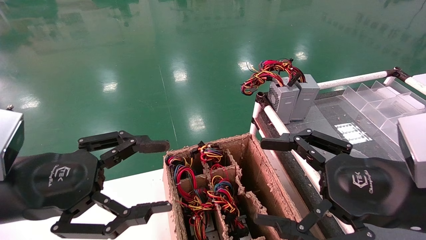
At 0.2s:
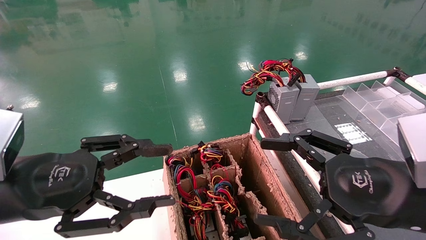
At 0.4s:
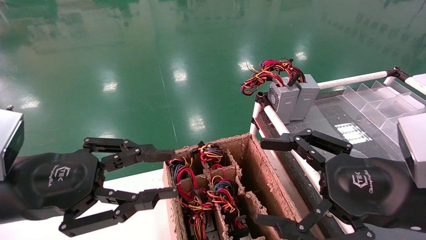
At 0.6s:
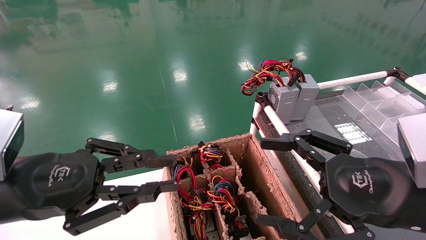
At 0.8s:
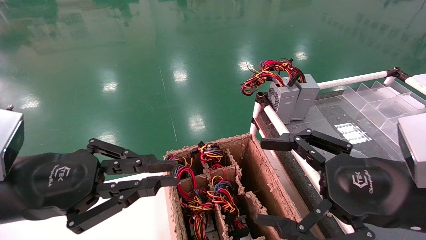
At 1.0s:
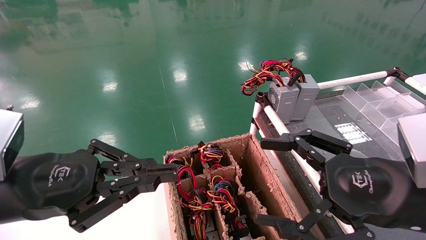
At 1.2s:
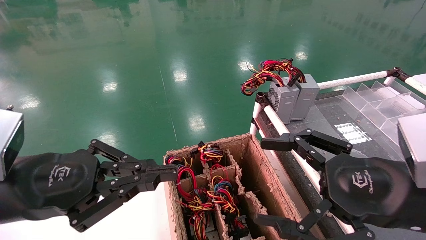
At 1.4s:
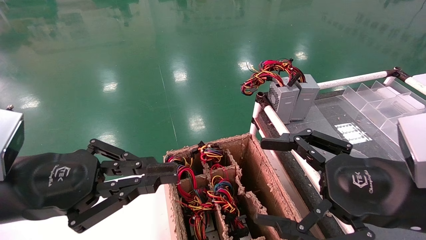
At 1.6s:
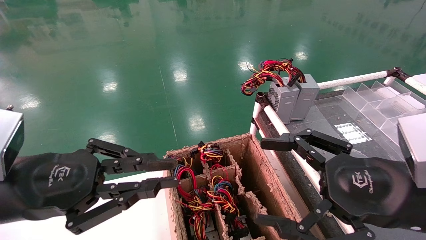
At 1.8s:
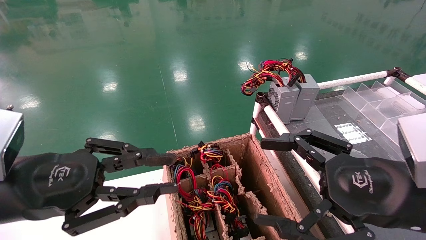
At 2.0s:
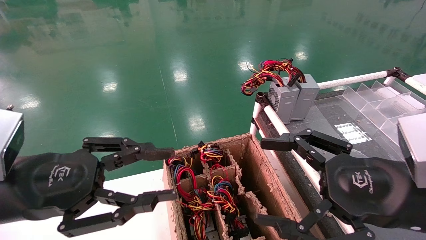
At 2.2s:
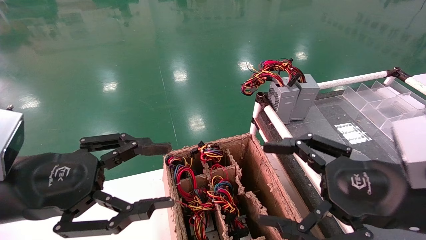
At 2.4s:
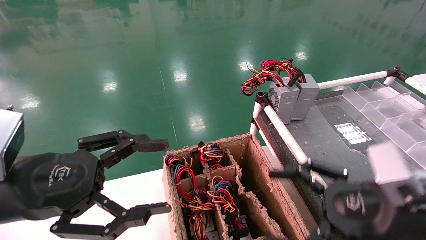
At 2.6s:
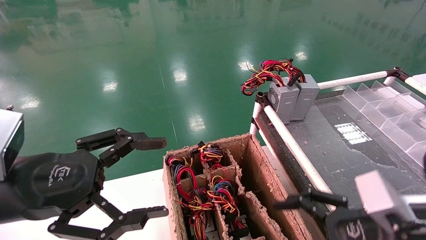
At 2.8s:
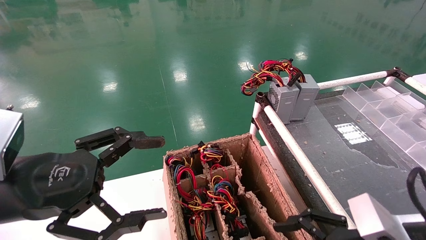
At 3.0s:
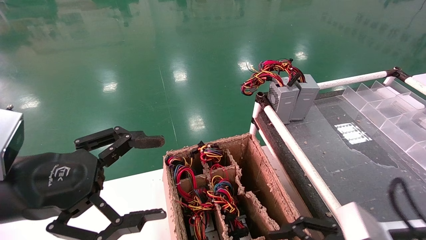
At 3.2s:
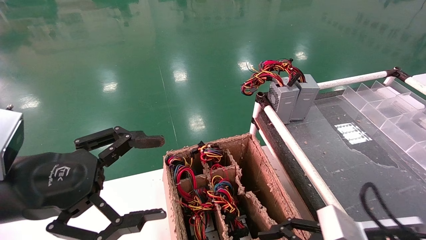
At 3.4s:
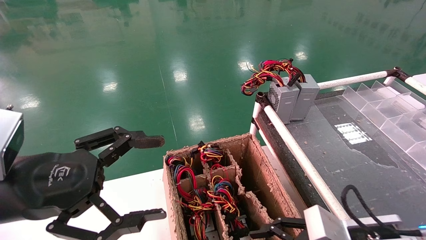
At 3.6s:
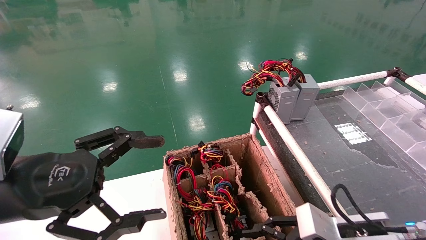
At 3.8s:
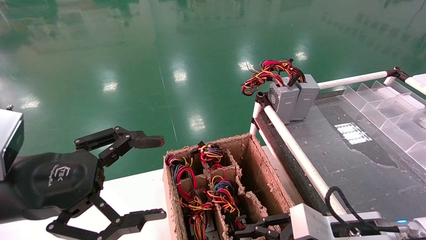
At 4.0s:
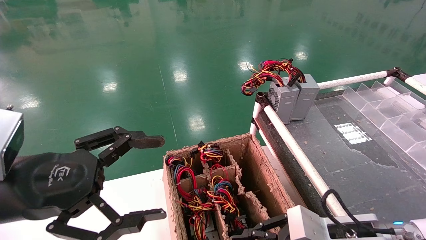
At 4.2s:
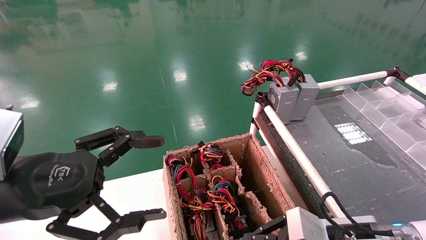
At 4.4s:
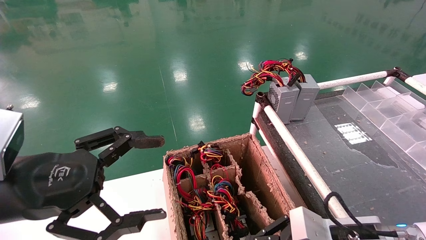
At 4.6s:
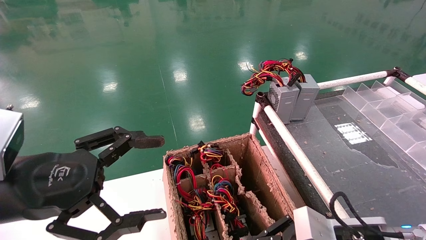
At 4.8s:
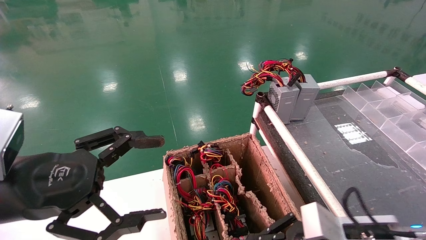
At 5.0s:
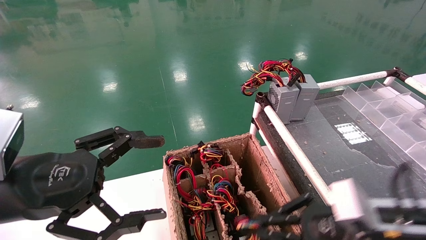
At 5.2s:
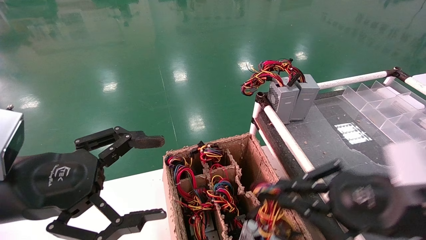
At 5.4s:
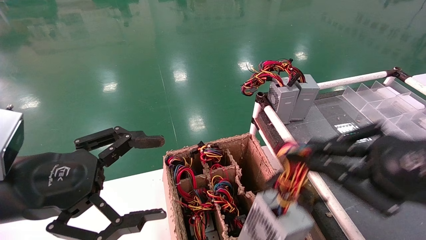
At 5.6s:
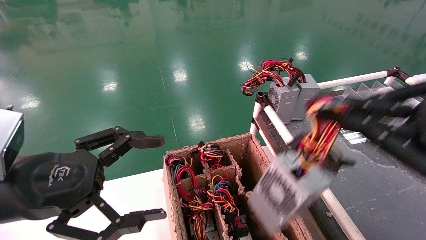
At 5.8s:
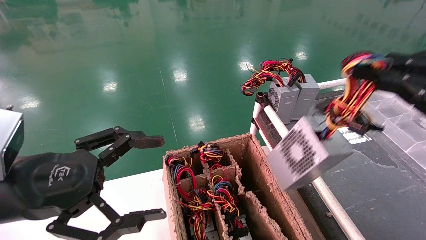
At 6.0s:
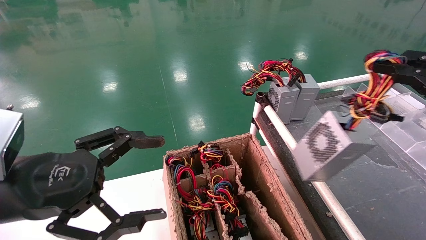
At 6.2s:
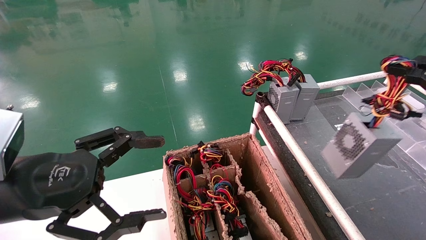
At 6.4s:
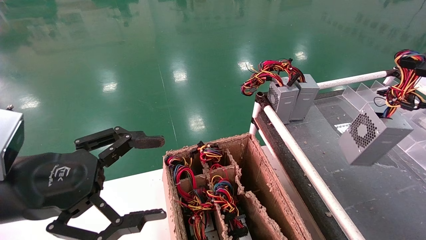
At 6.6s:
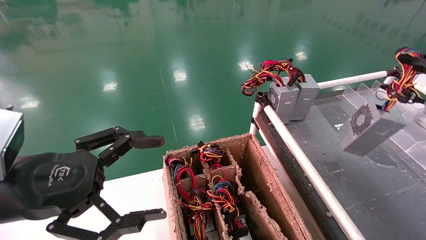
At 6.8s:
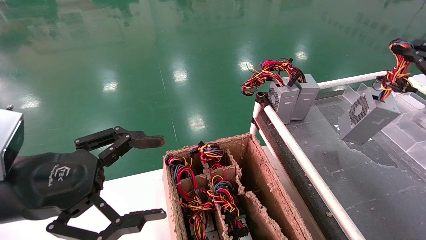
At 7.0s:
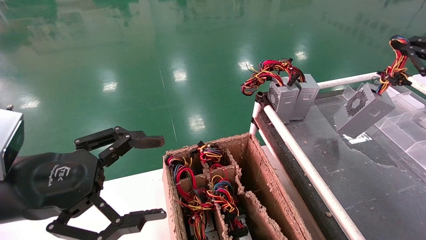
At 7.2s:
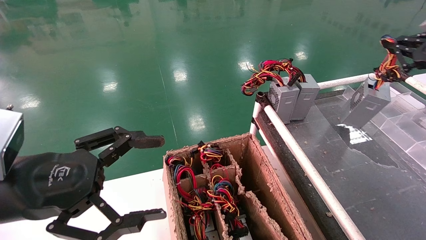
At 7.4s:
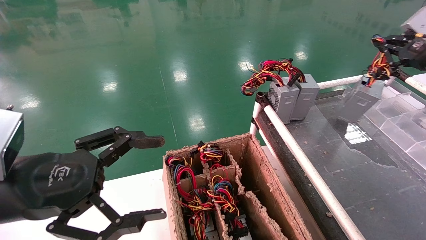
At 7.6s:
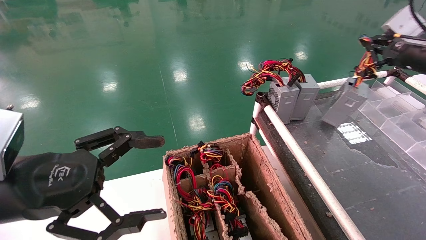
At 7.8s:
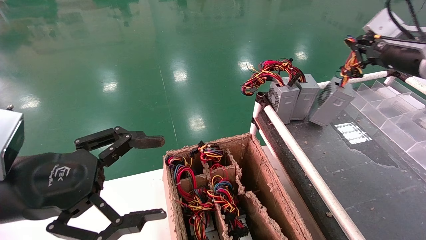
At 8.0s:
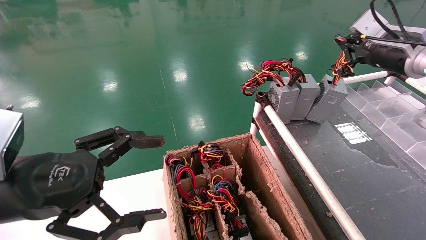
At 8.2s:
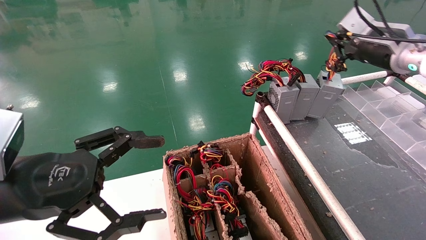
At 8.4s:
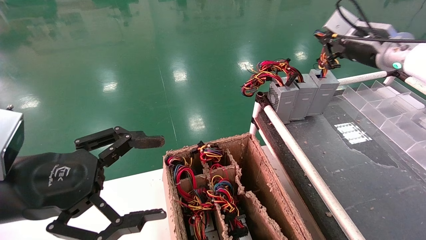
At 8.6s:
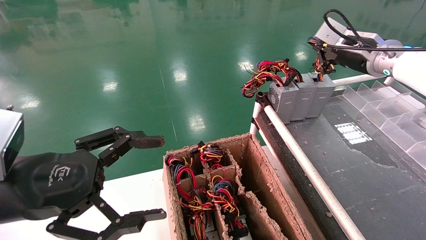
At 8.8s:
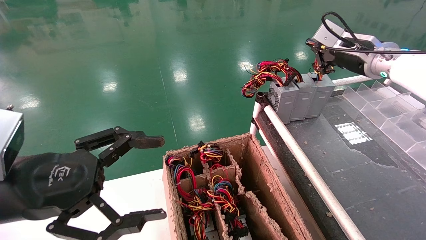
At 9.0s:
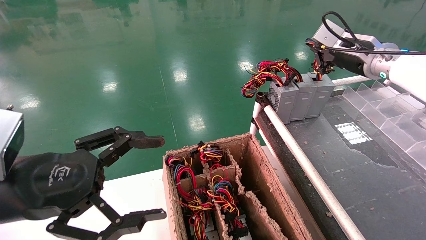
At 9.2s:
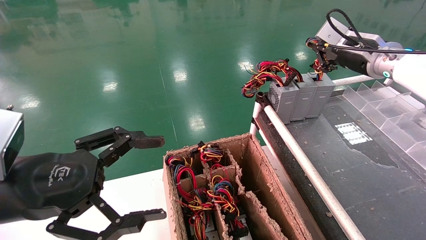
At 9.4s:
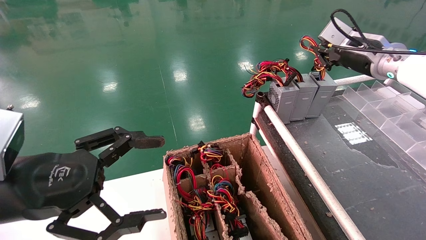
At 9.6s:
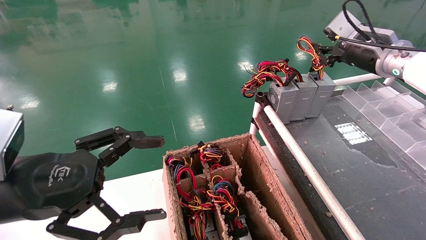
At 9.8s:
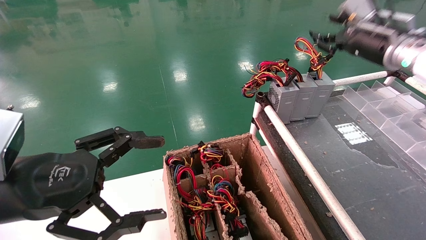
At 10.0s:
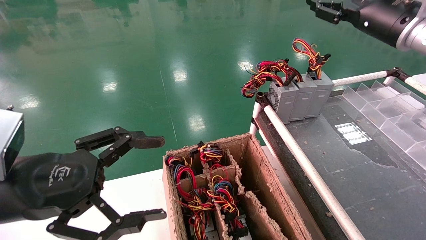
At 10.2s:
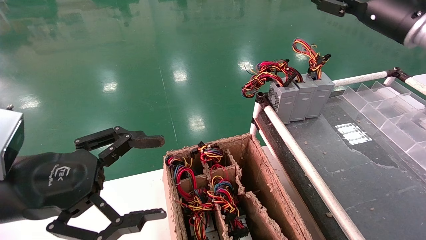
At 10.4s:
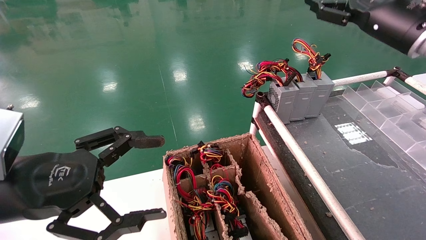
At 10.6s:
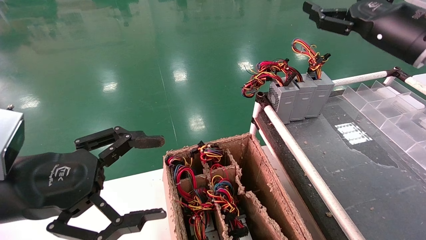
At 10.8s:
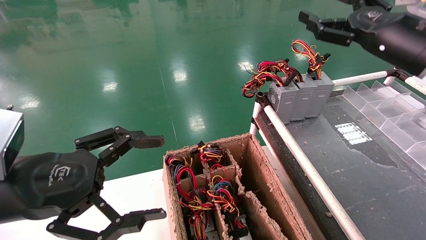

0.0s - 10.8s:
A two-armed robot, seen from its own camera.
Step, 1.2s - 4.2s: Grab and lift the power supply from the large box.
Step, 4.4s - 9.0s: Place the power supply on the operating table.
0.0s - 1.6s: The left gripper closes its fingers.
1.6s - 3.0s: The right gripper shifts roughly 10 cm downward, while the left gripper opens up.
3.0s - 4.6s: The right gripper ends up approximately 5 cm from where it was, and closes up.
4.6s - 6.2s: The right gripper heads upward and to the right, covering some 30 cm.
6.2s - 7.8s: The right gripper is displaced forward by about 20 cm.
7.8s - 9.2s: The right gripper travels to the left by approximately 10 cm.
9.2s - 10.8s: The right gripper travels backward by about 10 cm, and opens its fingers.

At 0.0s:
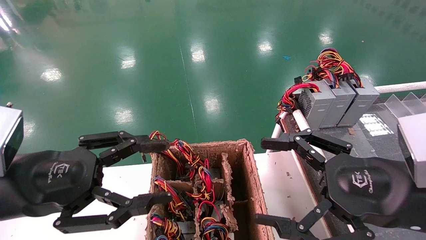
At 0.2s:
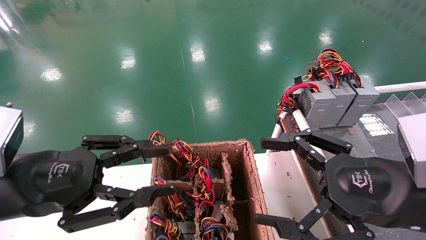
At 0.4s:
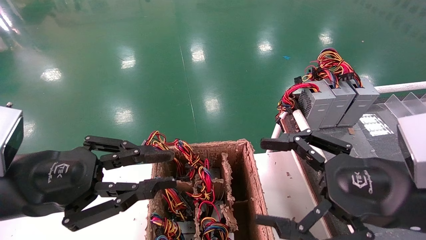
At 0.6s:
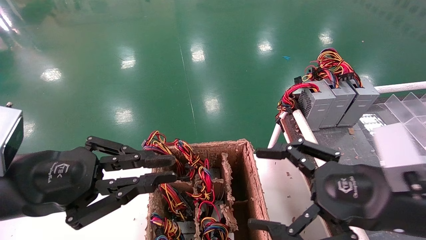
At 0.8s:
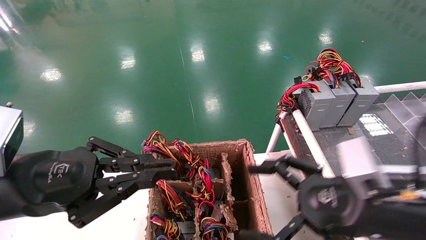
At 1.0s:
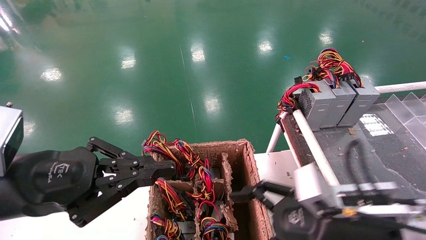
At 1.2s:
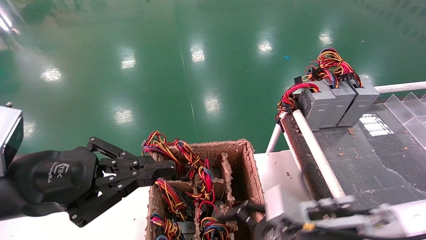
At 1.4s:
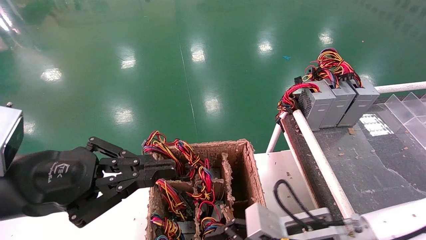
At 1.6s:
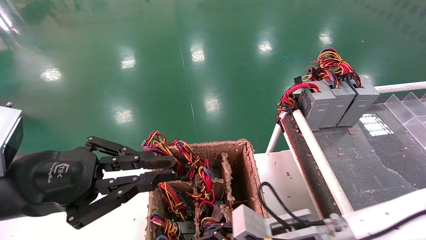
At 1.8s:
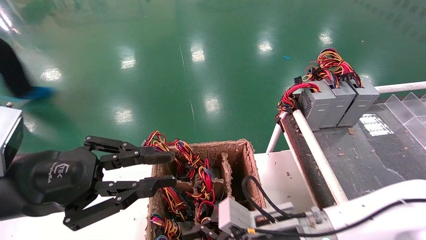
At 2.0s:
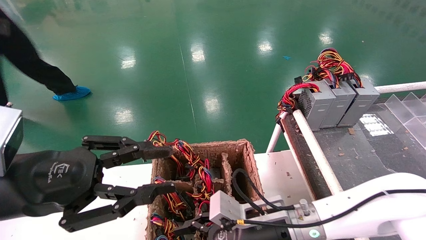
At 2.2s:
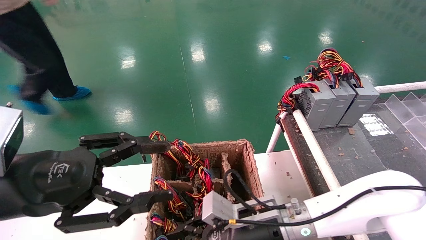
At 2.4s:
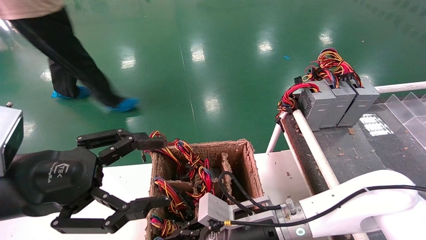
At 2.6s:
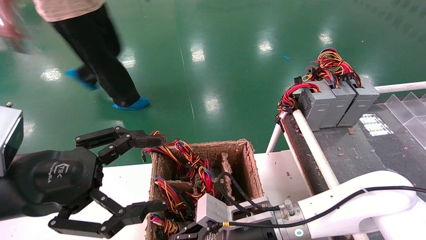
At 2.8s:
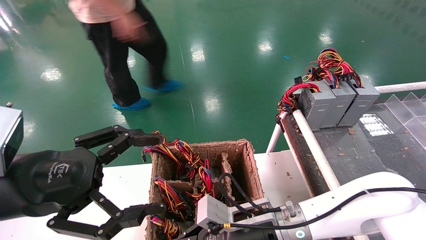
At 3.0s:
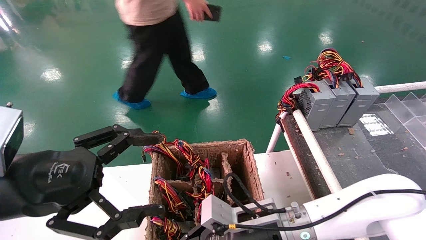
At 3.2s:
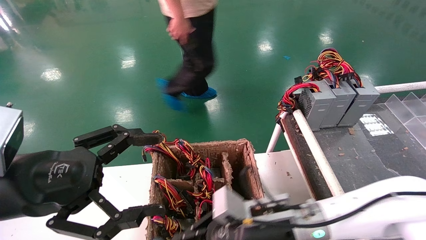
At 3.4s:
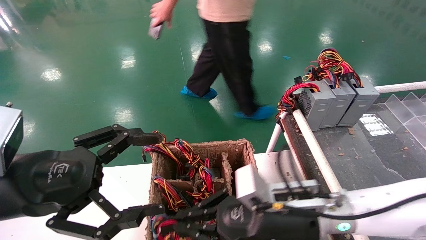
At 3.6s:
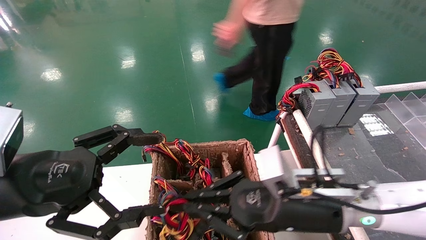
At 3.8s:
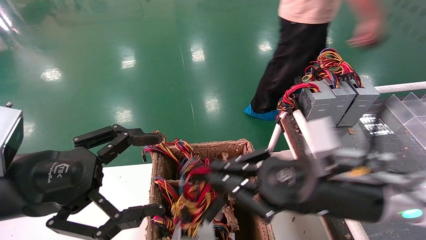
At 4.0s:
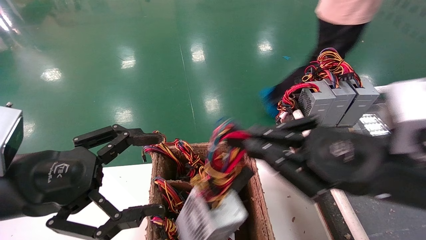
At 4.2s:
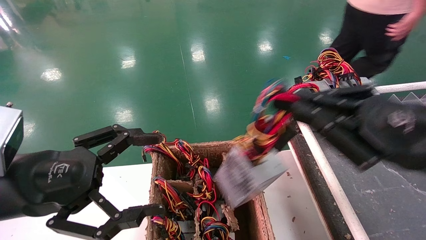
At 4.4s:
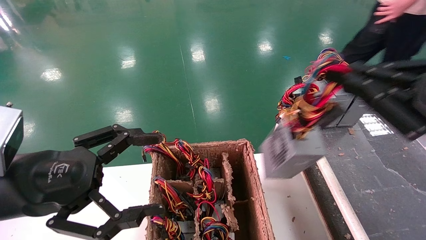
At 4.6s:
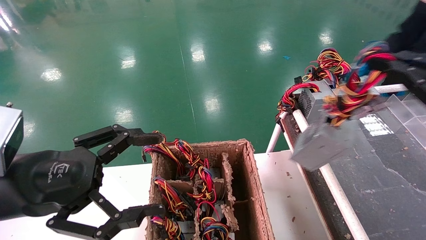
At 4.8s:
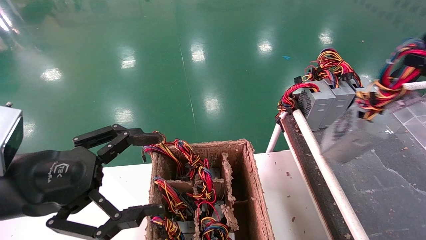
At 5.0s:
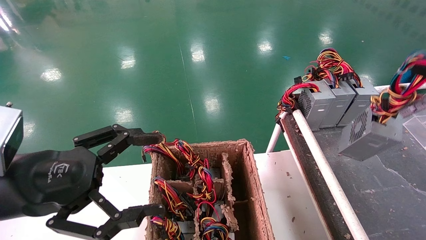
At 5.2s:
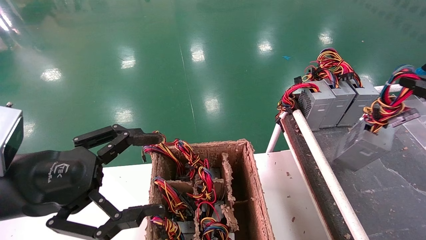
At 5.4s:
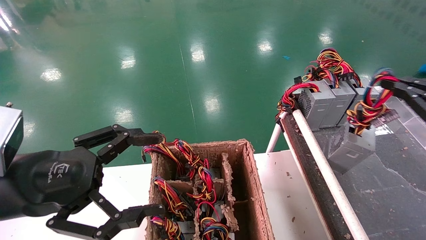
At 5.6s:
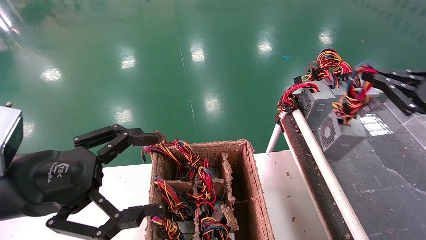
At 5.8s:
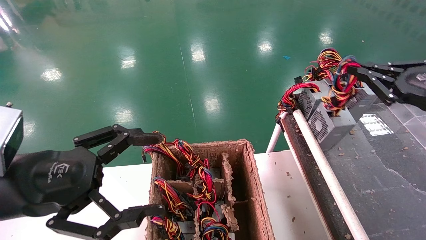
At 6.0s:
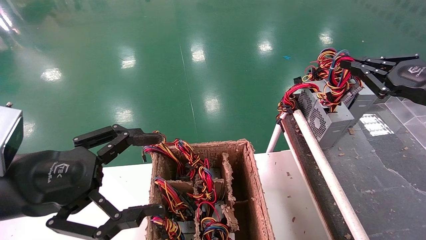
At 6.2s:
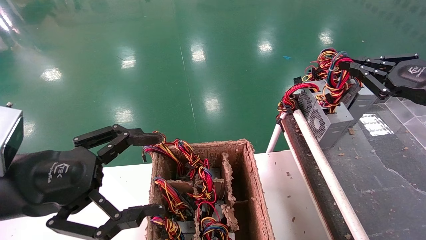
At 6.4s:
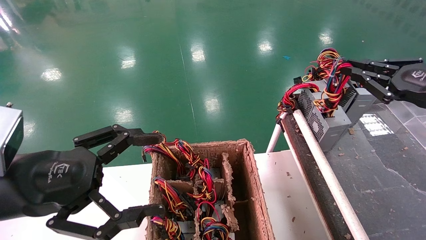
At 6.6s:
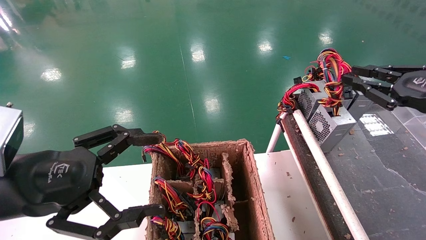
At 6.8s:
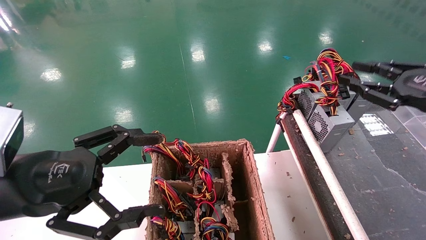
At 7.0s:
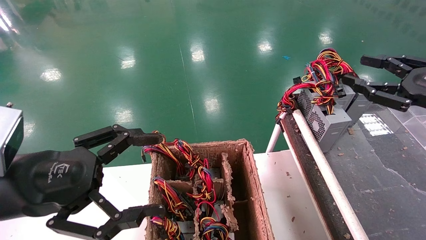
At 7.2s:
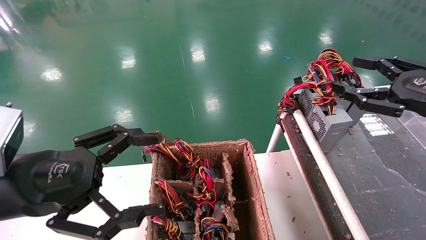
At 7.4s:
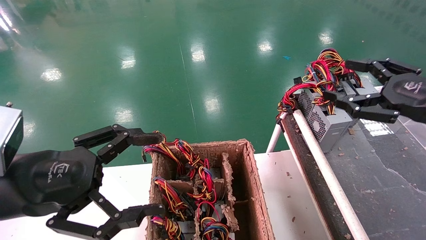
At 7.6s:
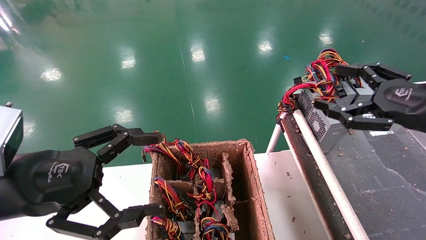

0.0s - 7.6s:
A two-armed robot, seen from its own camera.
Step, 1.0s - 3.0s: Grab and lift the power supply from the large box.
Step, 3.2s - 7.0s: Place the power supply on the operating table.
0.0s - 1.6s: The left gripper closes up. Meanwhile the right gripper is displaced downward, to the left and forward by roughly 20 cm.
1.6s - 3.0s: The right gripper moves about 5 cm, and closes up. Meanwhile the left gripper opens its fingers.
3.0s - 4.6s: The right gripper goes some 35 cm to the right and upward.
4.6s - 6.0s: The right gripper moves forward, about 10 cm.
6.0s - 7.6s: The right gripper moves approximately 5 cm, and opens its fingers.
